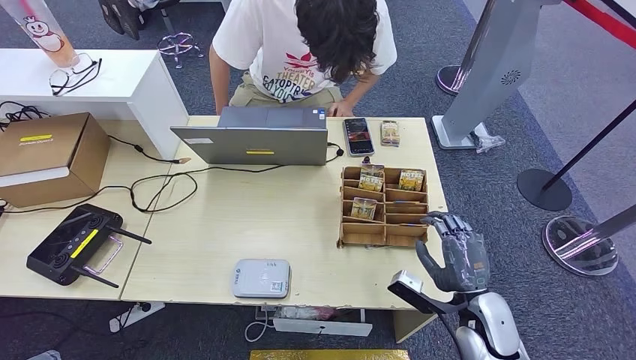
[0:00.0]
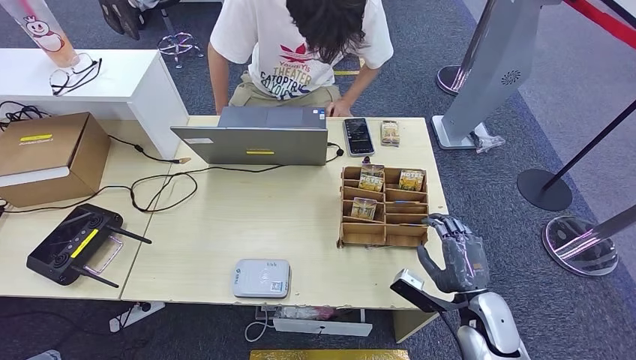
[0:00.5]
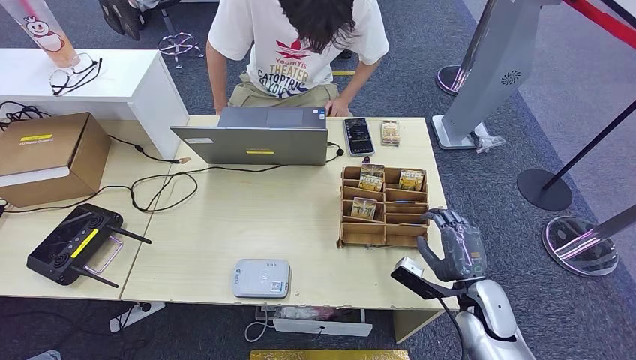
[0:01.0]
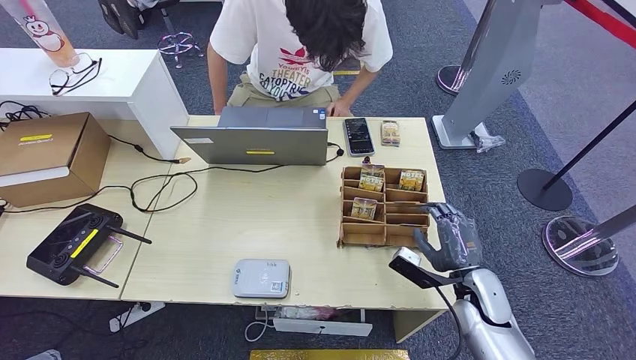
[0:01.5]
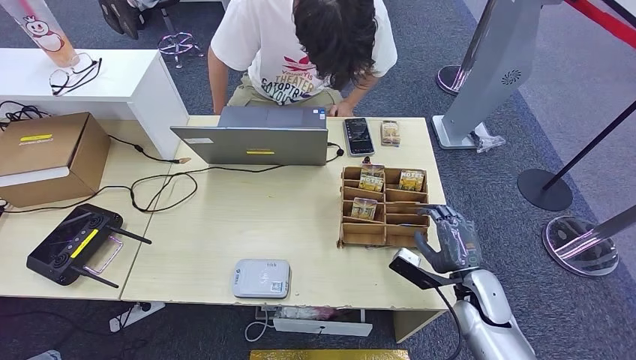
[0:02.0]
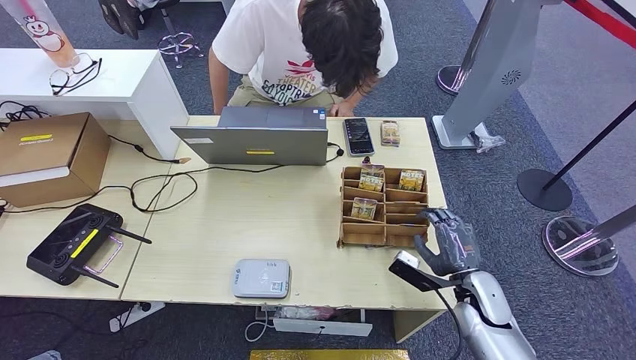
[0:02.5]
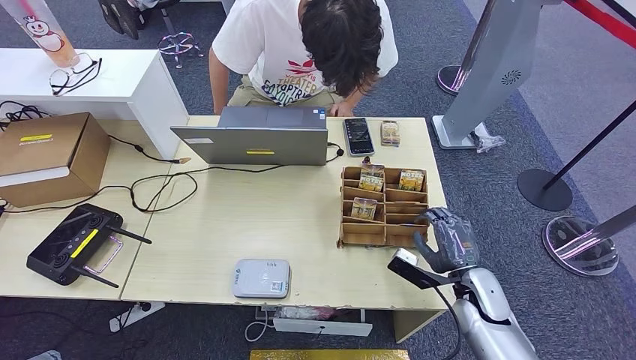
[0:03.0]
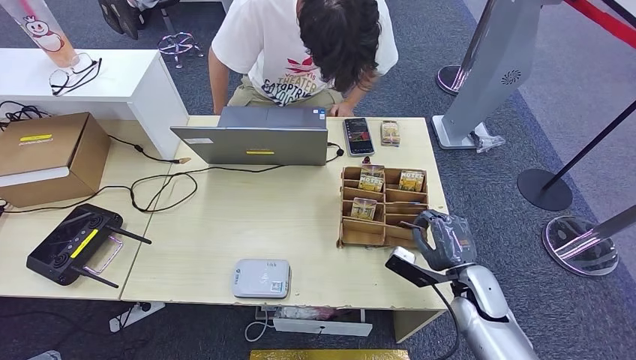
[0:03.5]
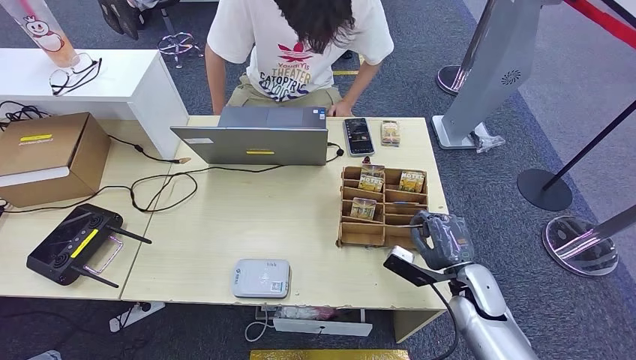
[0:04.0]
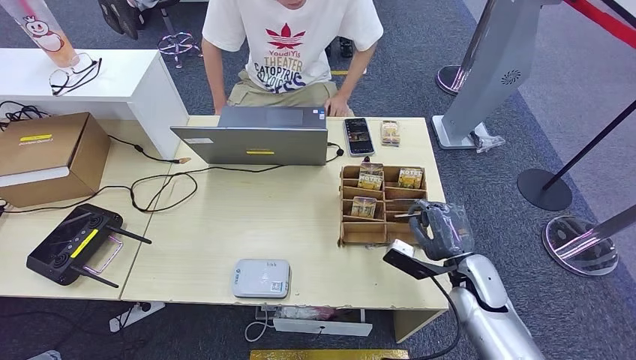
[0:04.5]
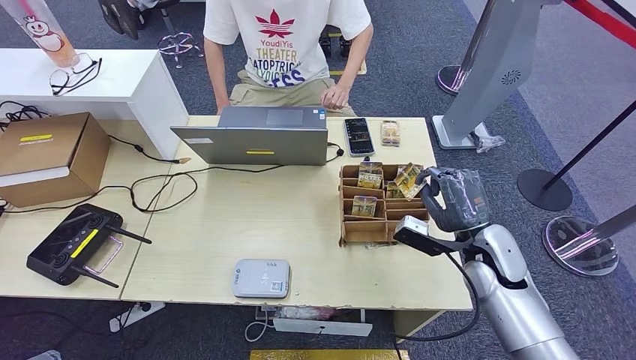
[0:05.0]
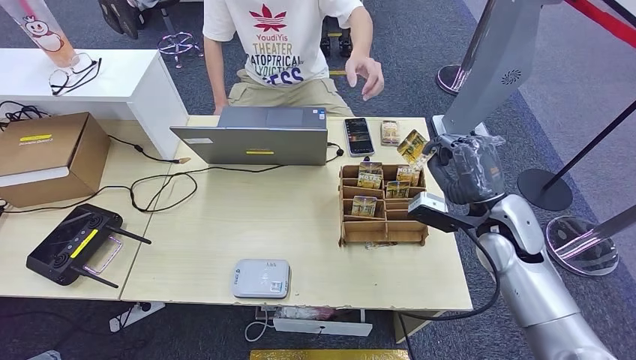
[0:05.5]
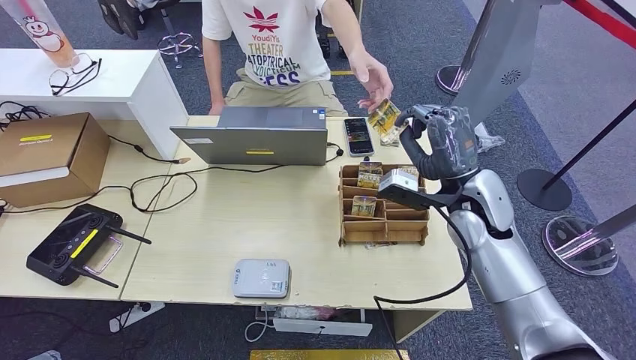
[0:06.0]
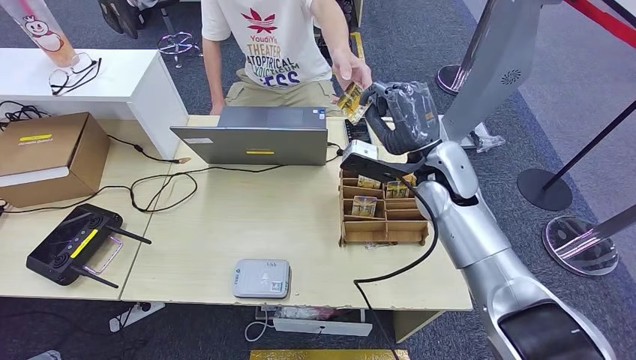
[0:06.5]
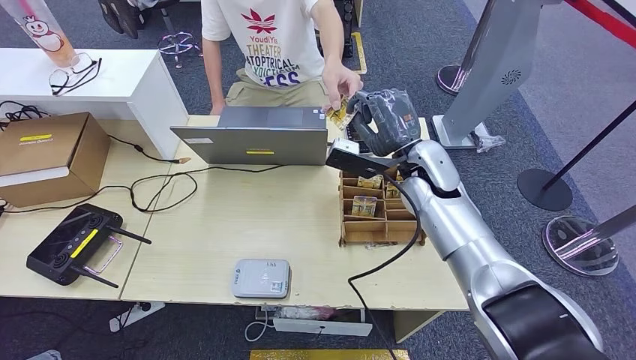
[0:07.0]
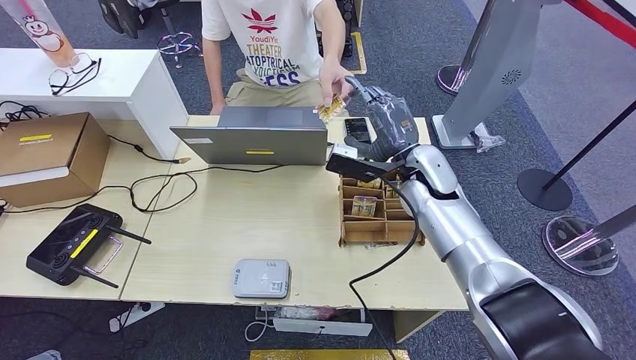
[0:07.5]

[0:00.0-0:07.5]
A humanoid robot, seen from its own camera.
Step, 0:00.0 to 0:04.5: Pick up the room key from the key card box.
Step, 0:05.0 to 0:07.5: Hand the room key to the person.
0:00.0 to 0:02.0: The right hand ends up roughly 5 cm from where it was.
0:02.0 to 0:04.0: Both hands stay put.
0:04.0 to 0:05.5: The right hand heads upward and forward, covering roughly 15 cm.
0:05.5 to 0:07.5: The right hand is displaced to the left and forward by some 15 cm.

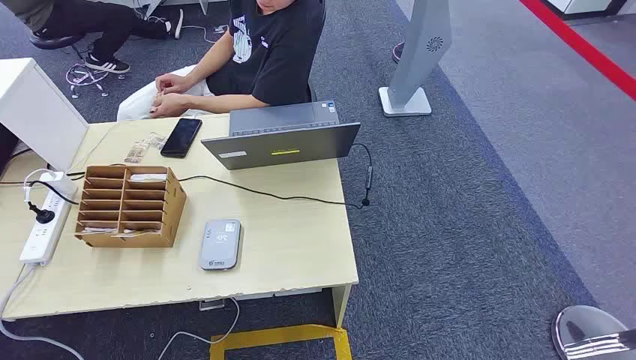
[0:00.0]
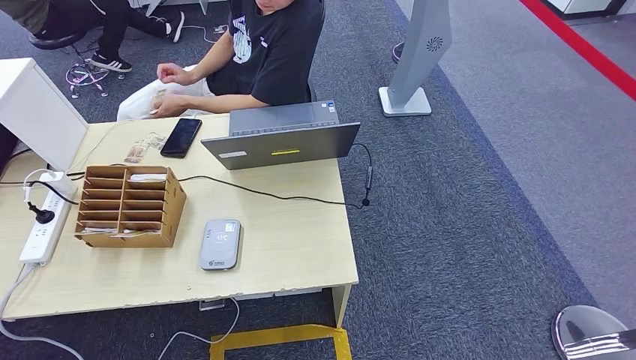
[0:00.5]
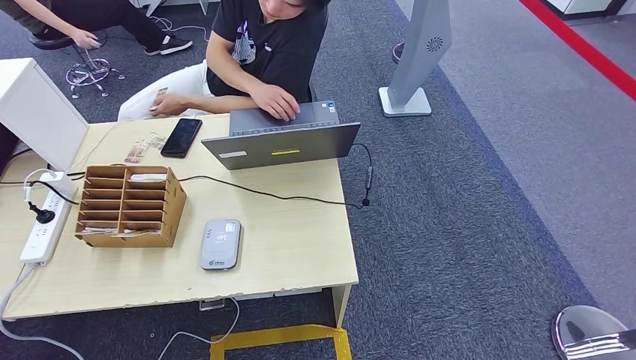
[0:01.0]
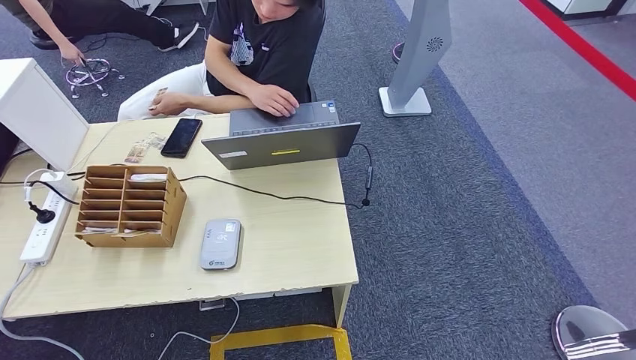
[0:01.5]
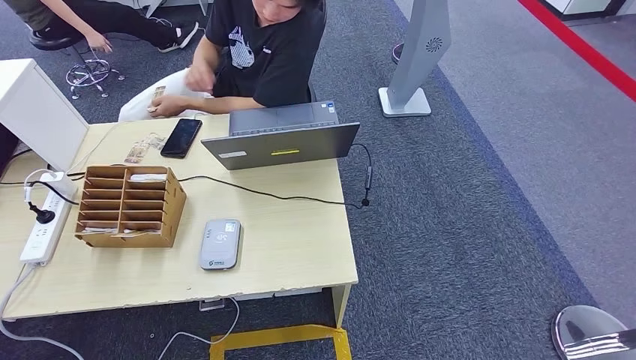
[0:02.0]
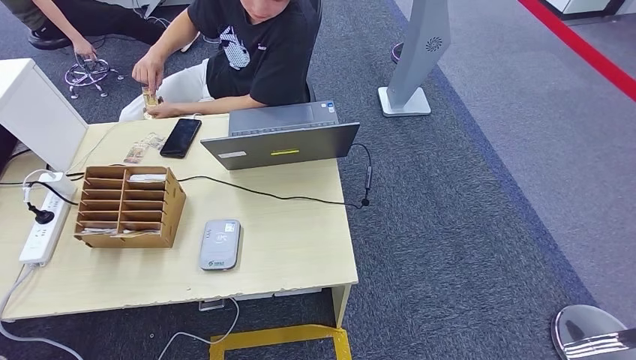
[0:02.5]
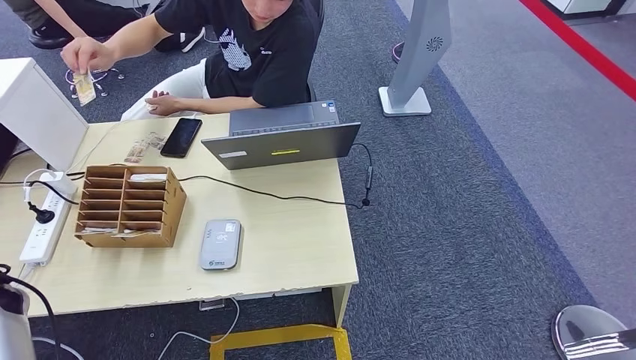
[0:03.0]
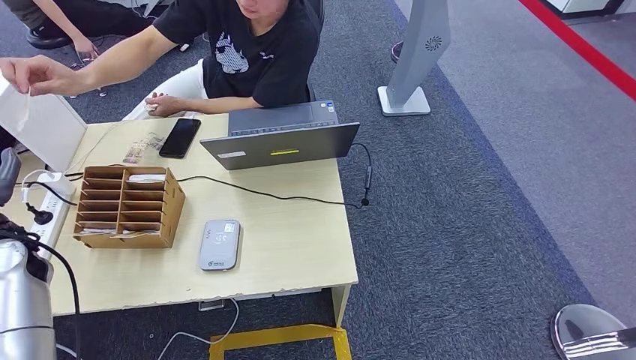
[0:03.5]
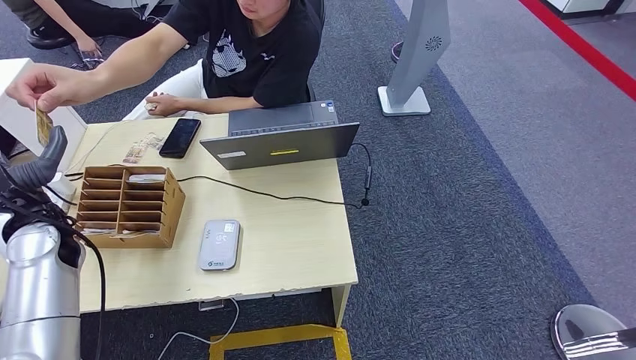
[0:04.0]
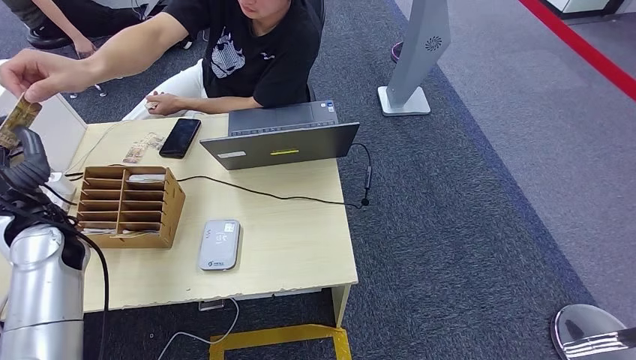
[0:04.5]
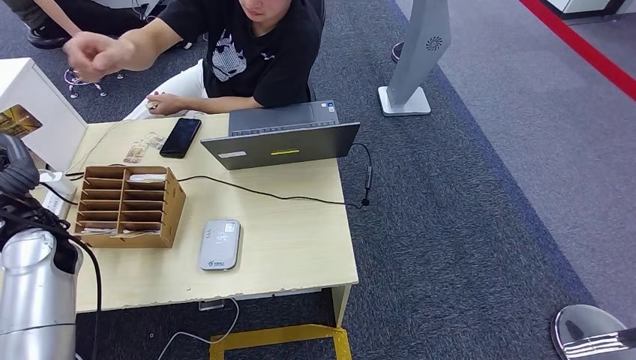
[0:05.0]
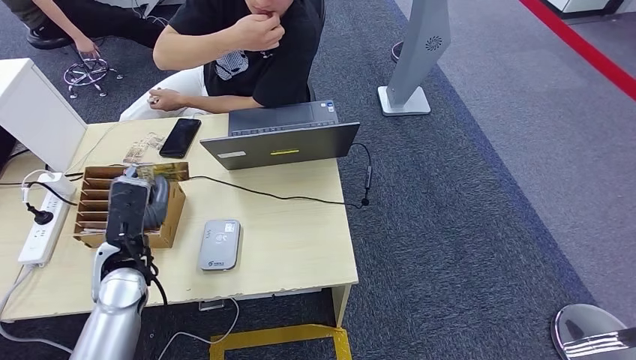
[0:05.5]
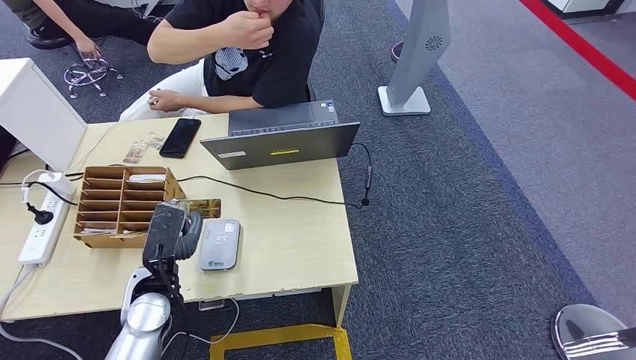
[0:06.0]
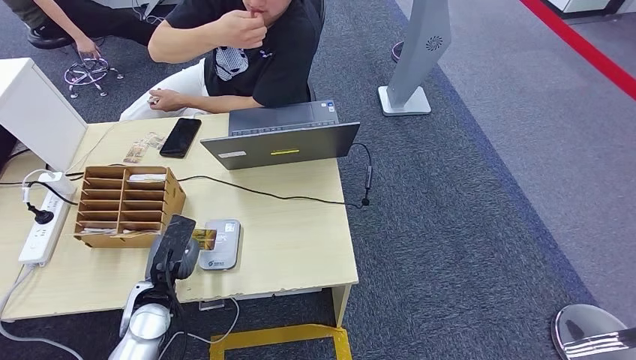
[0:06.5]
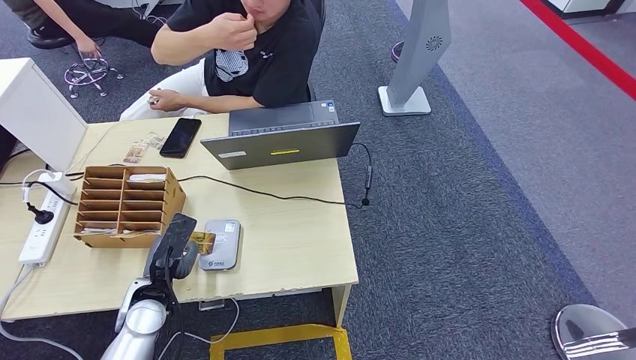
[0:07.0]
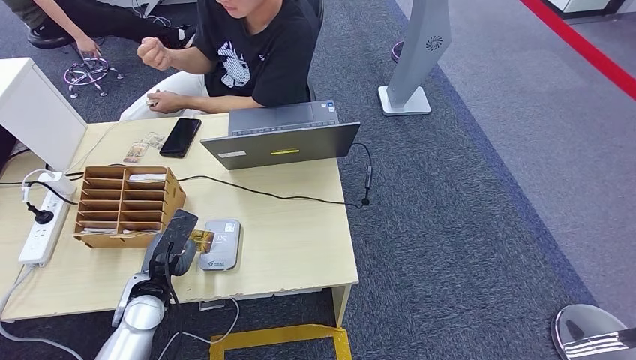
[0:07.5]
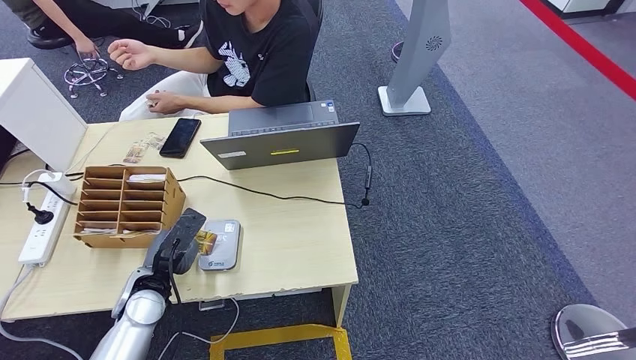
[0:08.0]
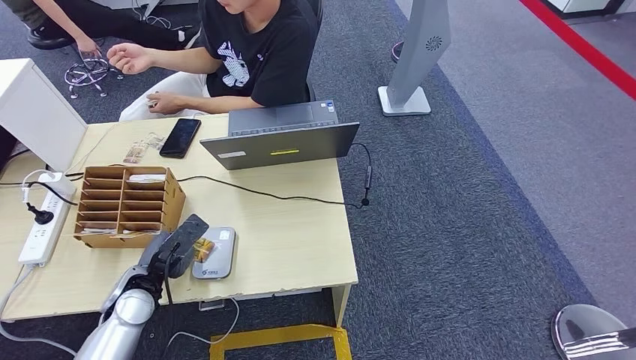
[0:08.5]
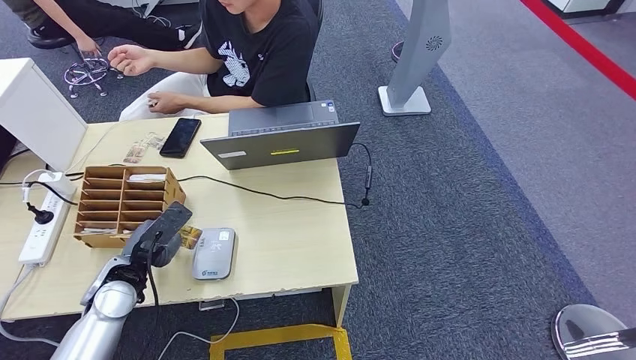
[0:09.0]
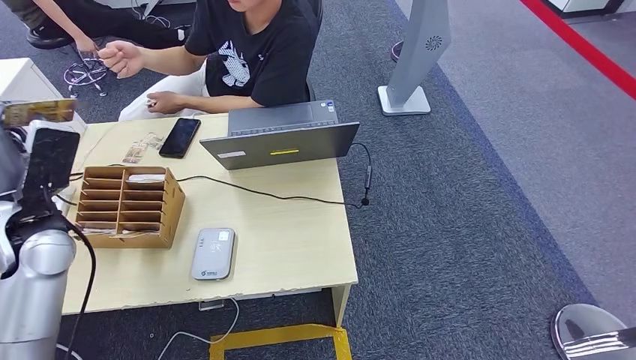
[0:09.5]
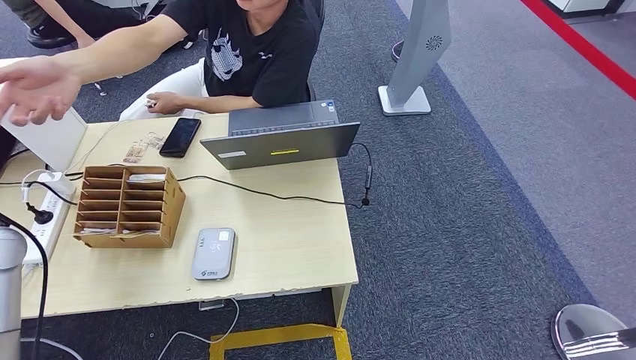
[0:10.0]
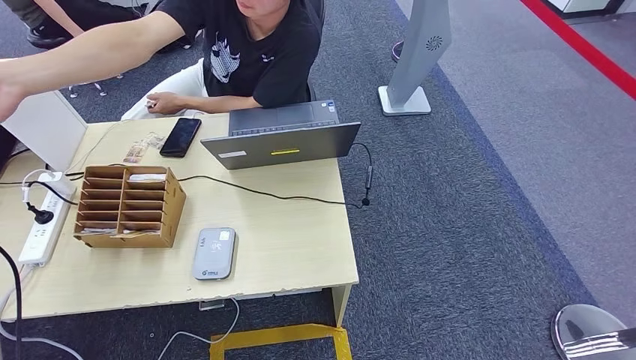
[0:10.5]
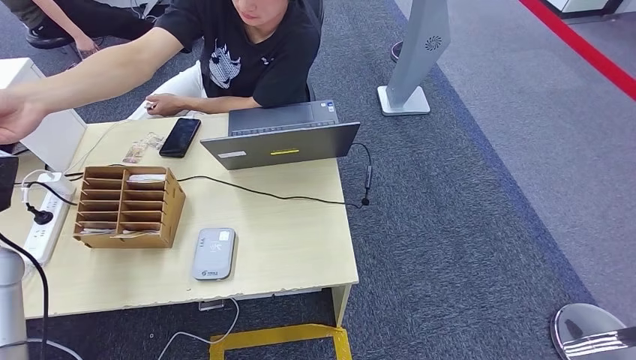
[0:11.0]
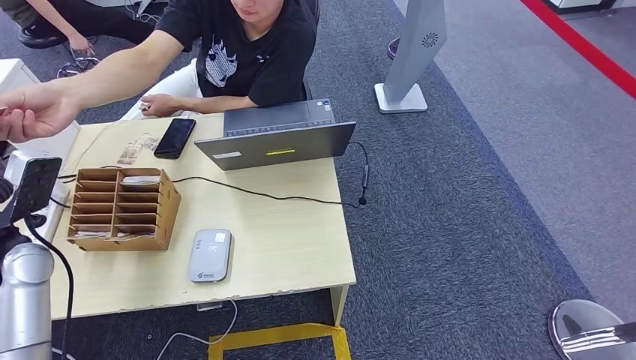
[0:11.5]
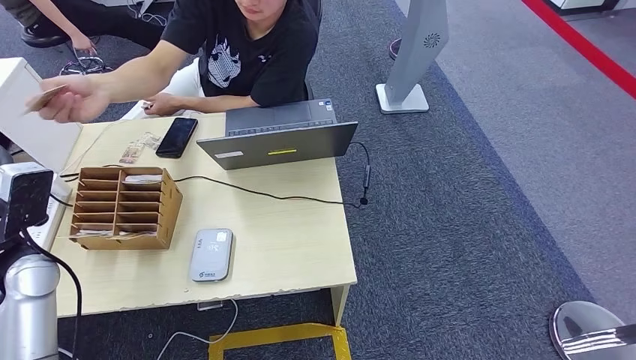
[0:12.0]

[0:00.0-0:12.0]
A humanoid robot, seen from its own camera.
Step, 0:00.0 to 0:04.5: Take the ID card from the person's hand.
Step, 0:05.0 to 0:08.0: Place the ID card on the card reader.
0:02.0 to 0:04.0: The left hand heads forward, covering about 25 cm.
0:04.0 to 0:06.0: The left hand is displaced to the right, downward and backward by approximately 20 cm.
0:08.0 to 0:10.0: The left hand travels upward and to the left by some 25 cm.
0:10.0 to 0:12.0: The left hand ends up approximately 5 cm from where it was.
